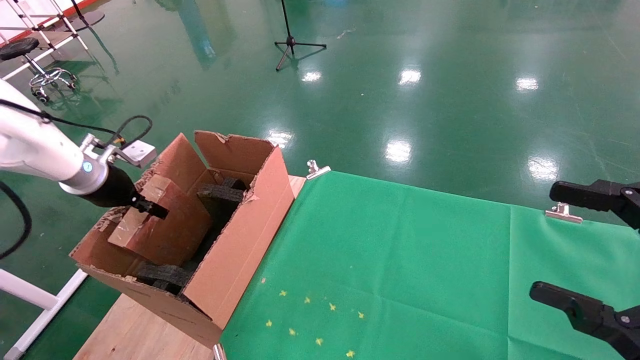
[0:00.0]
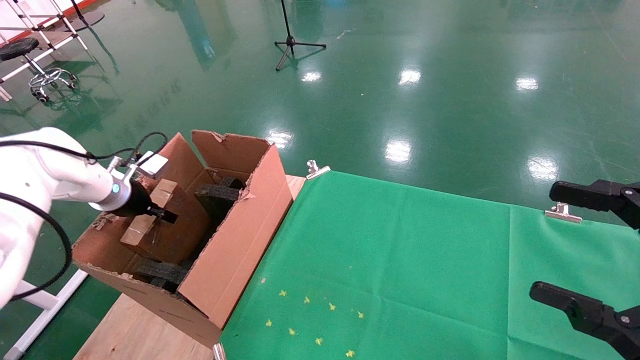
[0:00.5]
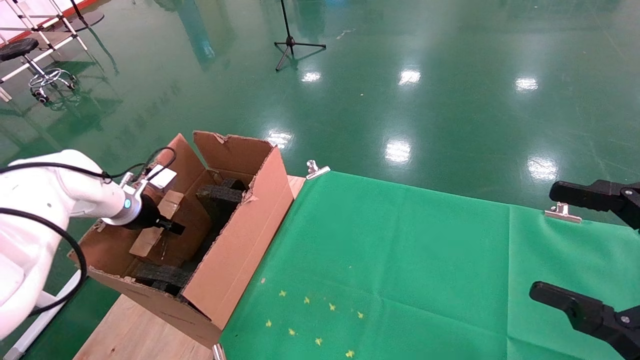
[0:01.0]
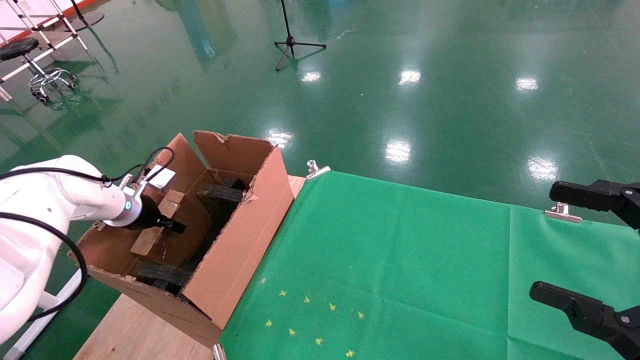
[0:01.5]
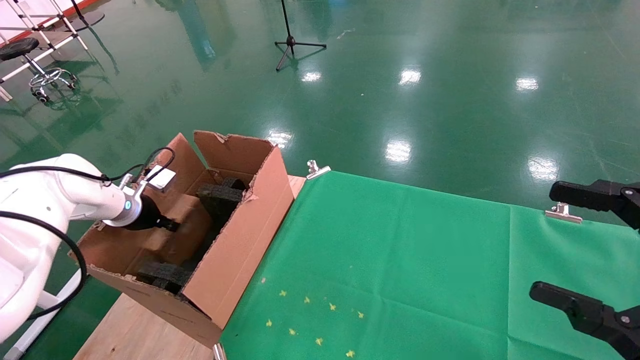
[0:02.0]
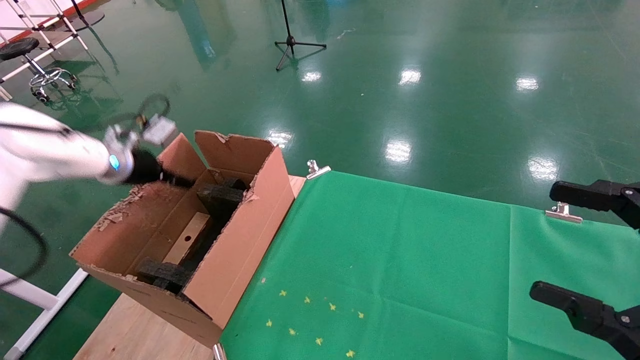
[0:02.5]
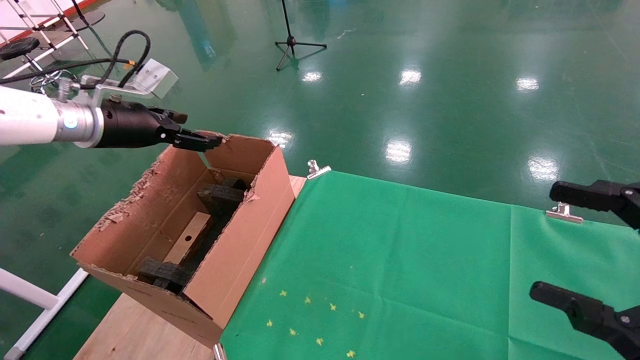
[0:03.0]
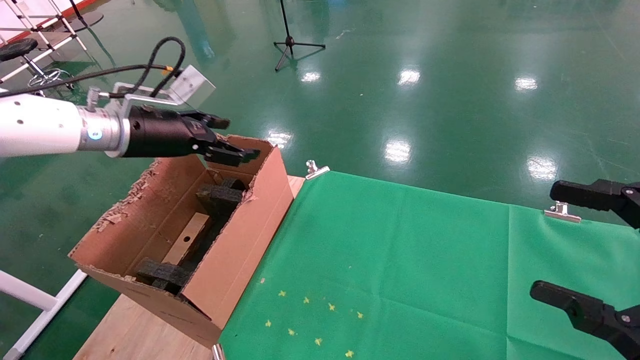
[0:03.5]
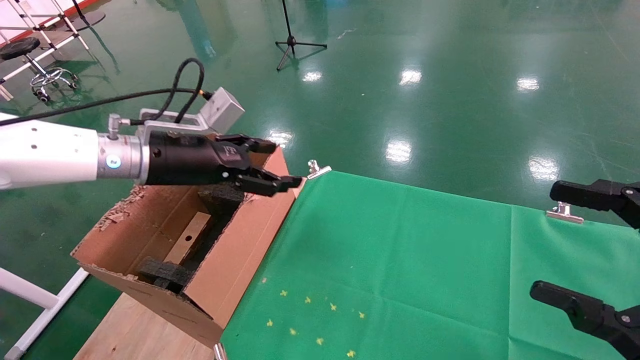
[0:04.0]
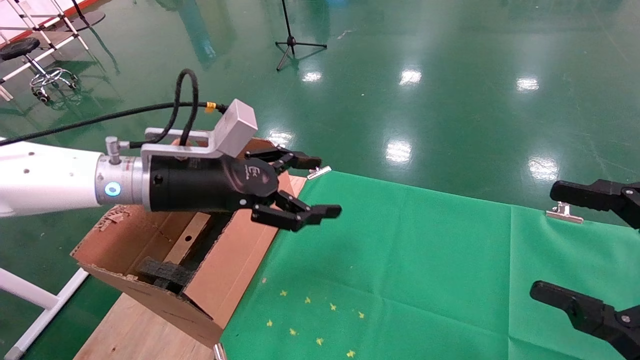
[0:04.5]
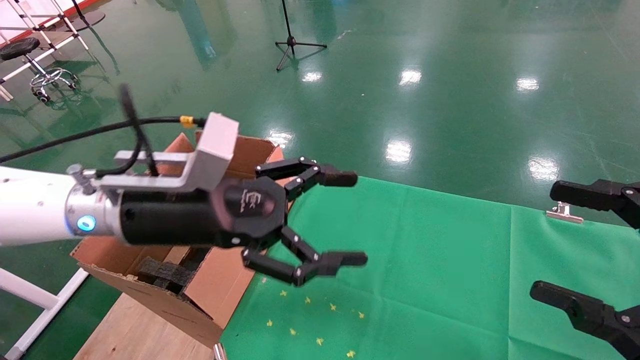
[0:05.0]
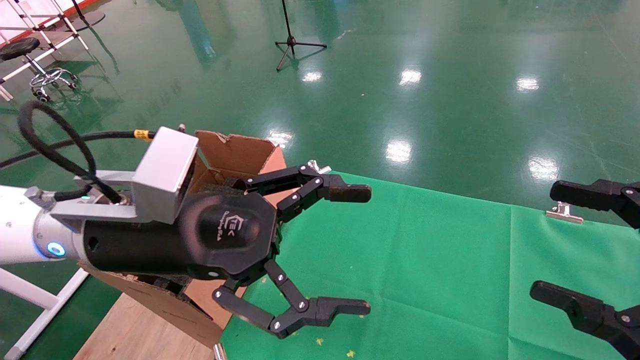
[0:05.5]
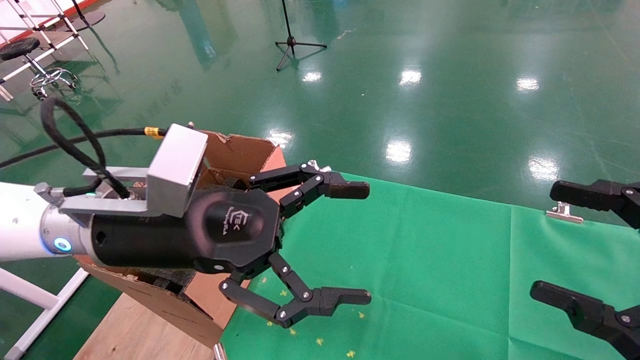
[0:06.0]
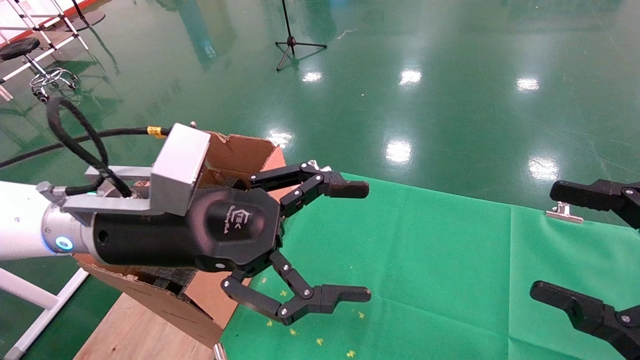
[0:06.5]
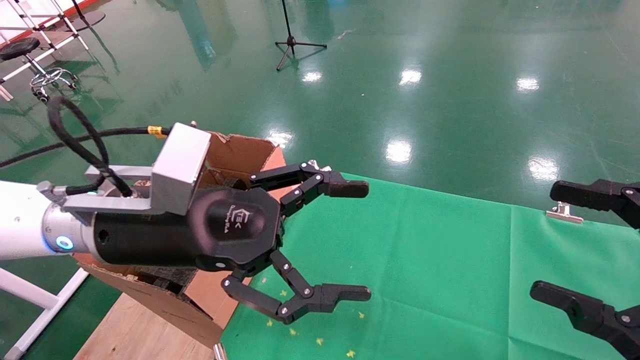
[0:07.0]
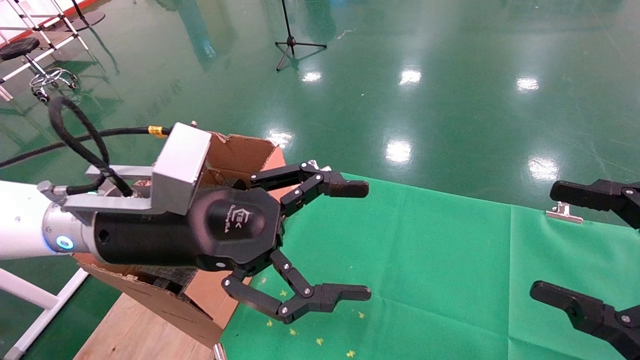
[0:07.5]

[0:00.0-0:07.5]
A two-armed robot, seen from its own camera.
Task of the whole recording: using a robotic arm to pick up a cardboard box and palace it the carton.
Step, 0:00.0 to 0:02.5: Place the mouse and the power cord paper box into the container.
0:00.0 to 0:02.0: The left gripper shifts roughly 10 cm downward.
0:02.0 to 0:04.0: The left gripper travels to the right, upward and backward by approximately 20 cm, and opens up.
0:04.0 to 0:05.5: The left gripper heads backward and to the right, covering some 15 cm.
0:05.5 to 0:07.5: The two grippers keep their place.

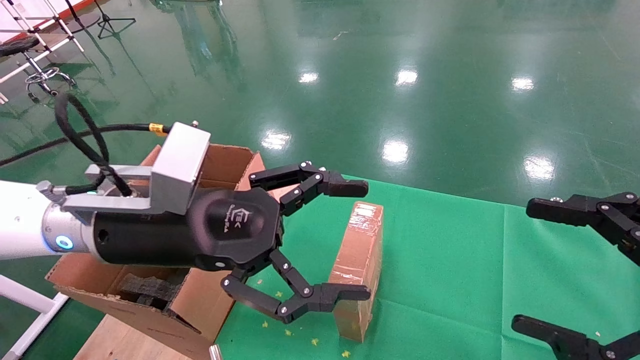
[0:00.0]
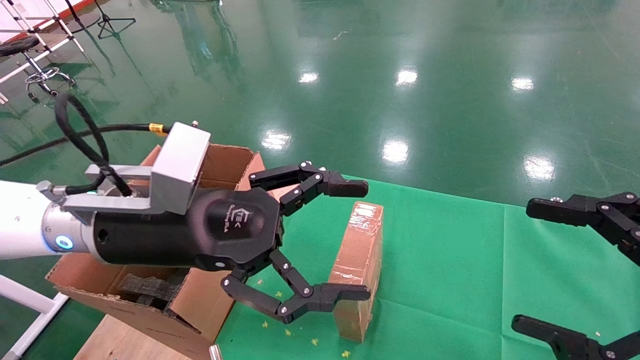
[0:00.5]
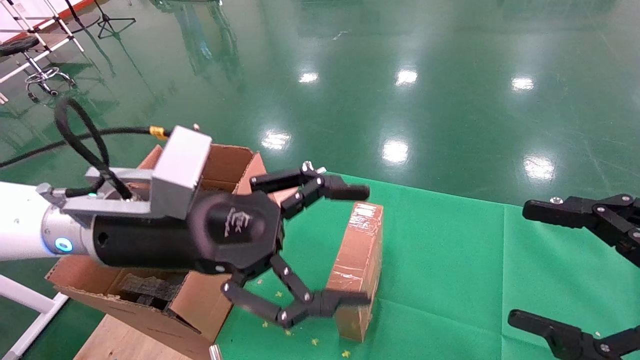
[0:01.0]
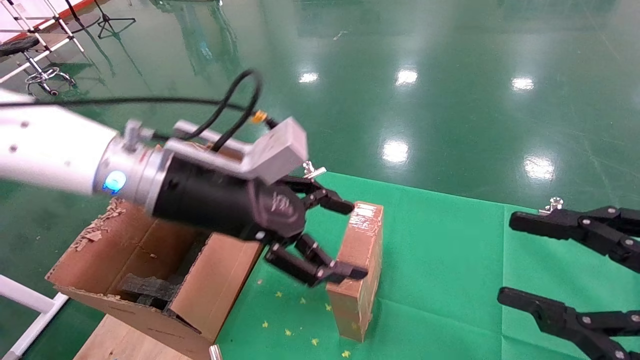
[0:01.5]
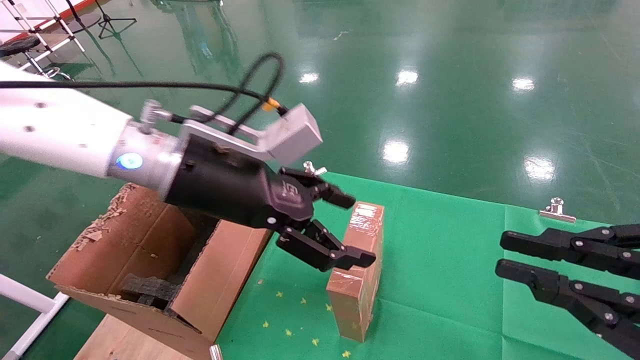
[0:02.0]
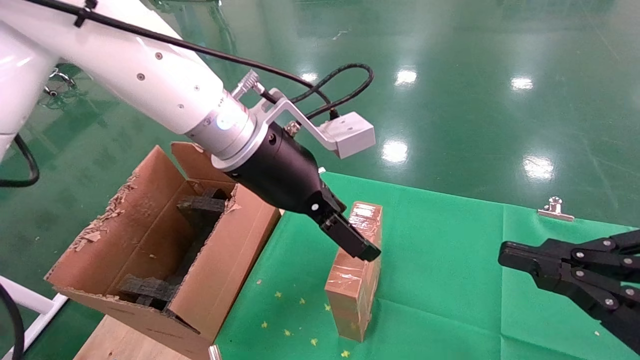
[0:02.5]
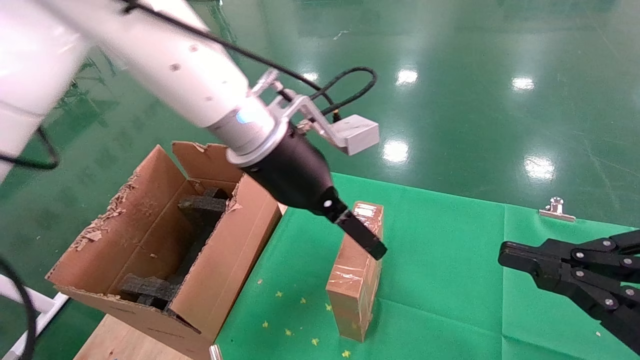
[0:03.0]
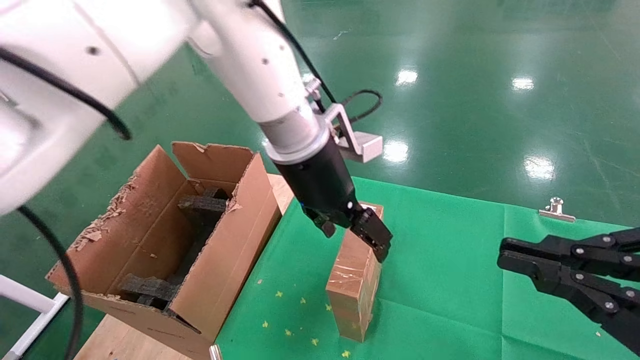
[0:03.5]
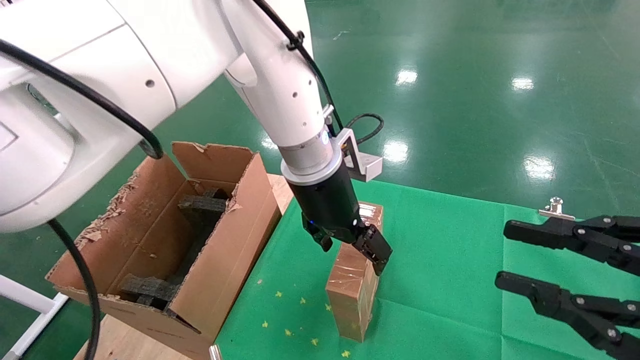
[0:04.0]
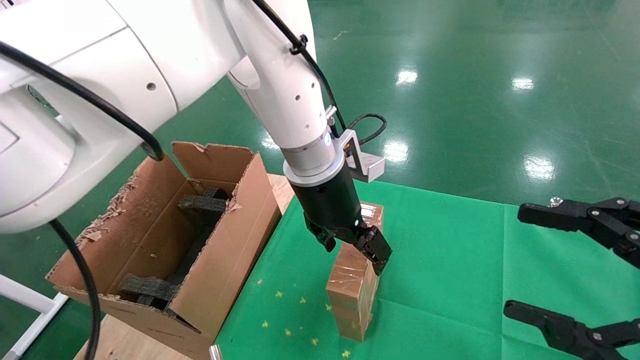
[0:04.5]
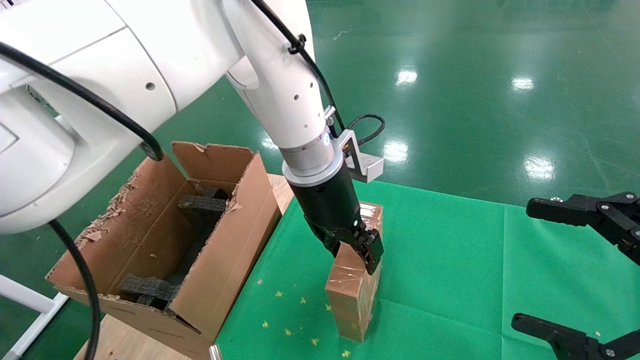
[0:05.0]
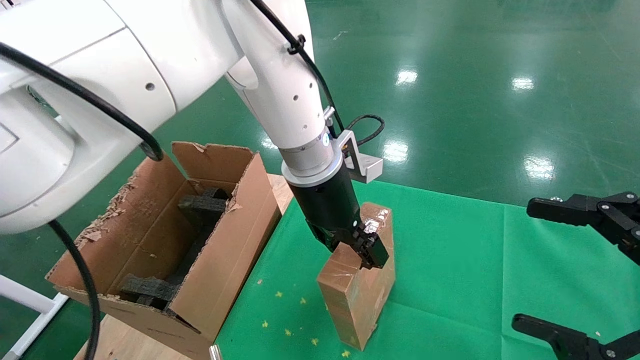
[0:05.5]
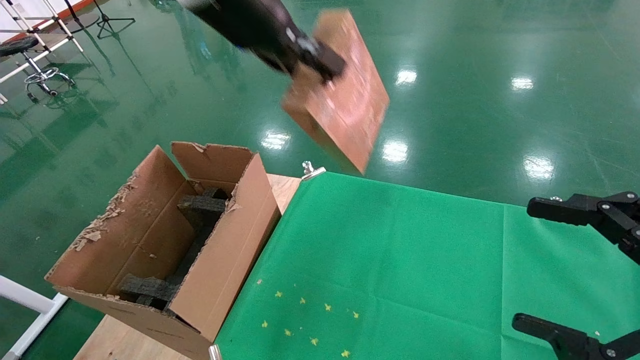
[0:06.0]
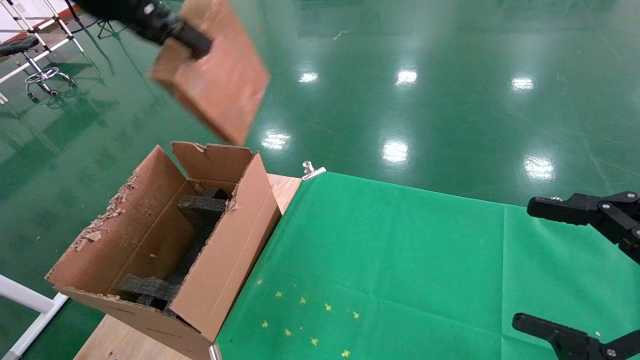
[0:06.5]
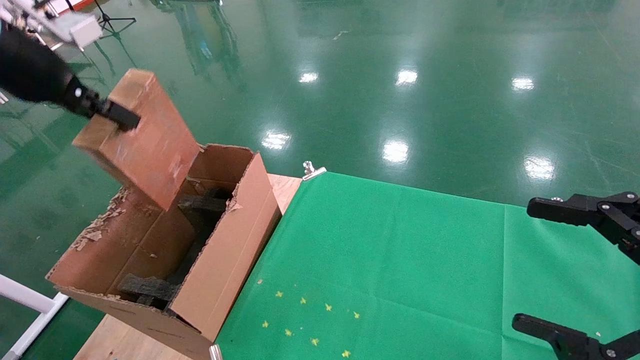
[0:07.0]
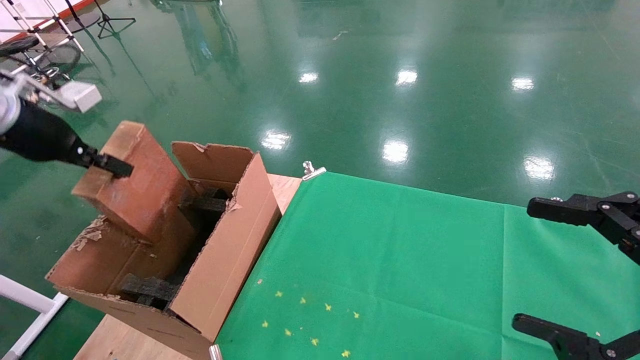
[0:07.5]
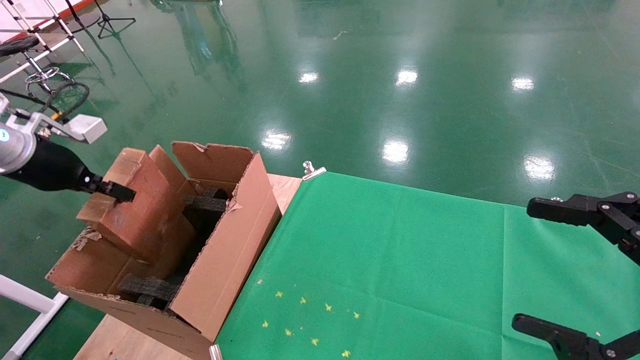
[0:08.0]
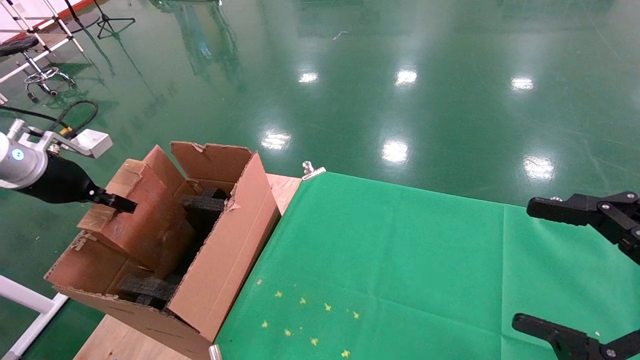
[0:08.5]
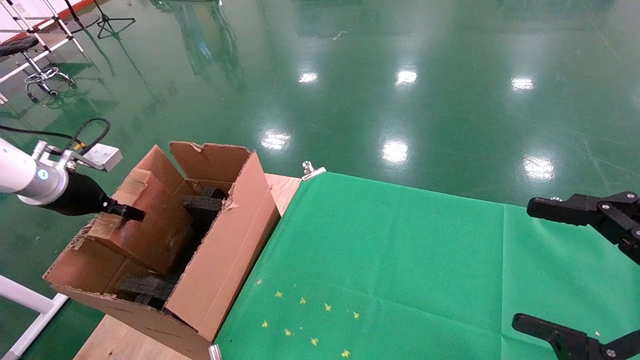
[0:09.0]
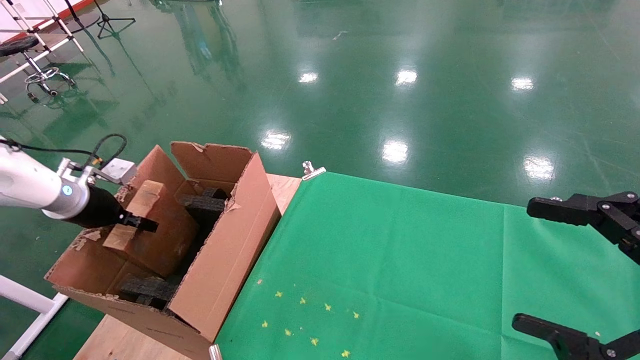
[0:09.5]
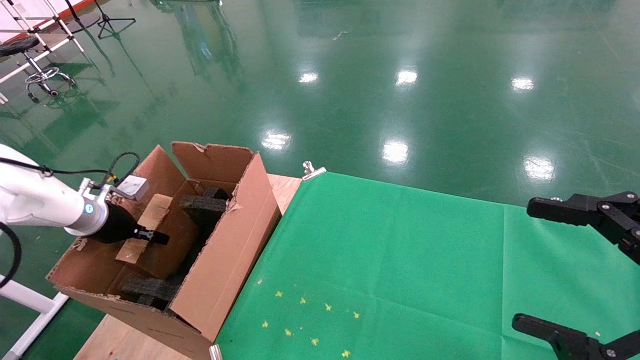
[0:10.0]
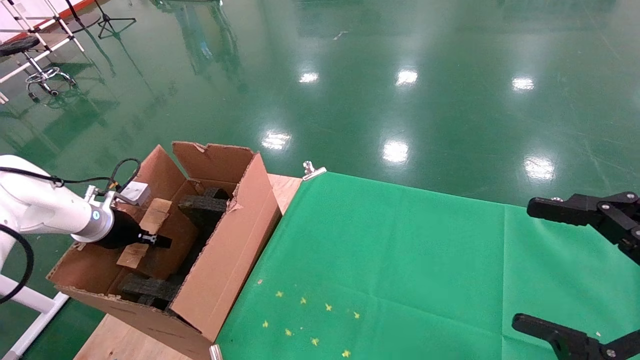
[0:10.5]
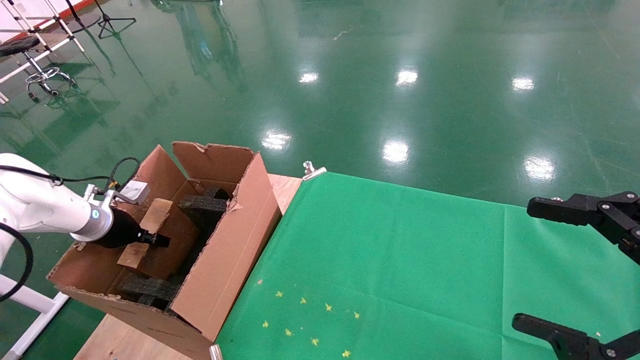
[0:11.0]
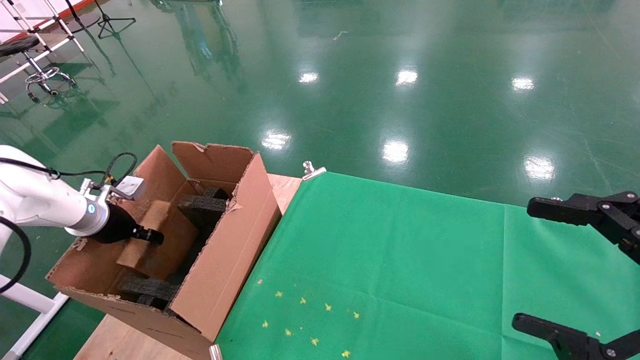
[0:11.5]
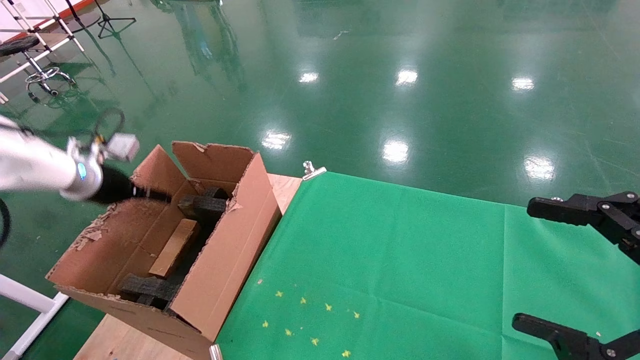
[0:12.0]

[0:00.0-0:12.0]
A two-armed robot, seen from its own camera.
Task of the whole recording: using a robotic arm to pick up a cardboard box and palace it the carton.
Step, 0:01.5 to 0:05.0: Pick up the mouse and the power cord paper box.
0:00.0 to 0:02.0: The right gripper closes up. The left gripper moves forward, roughly 5 cm.
0:02.0 to 0:04.0: The left gripper shifts approximately 15 cm to the right and forward.
0:04.0 to 0:06.0: The right gripper opens up; the left gripper goes roughly 25 cm upward and to the left, and closes its fingers.
0:06.0 to 0:08.0: The left gripper goes some 35 cm to the left and downward.
0:08.0 to 0:10.0: The left gripper heads downward and forward, covering approximately 15 cm.
0:10.0 to 0:12.0: The left gripper travels upward by approximately 10 cm, and opens up.
